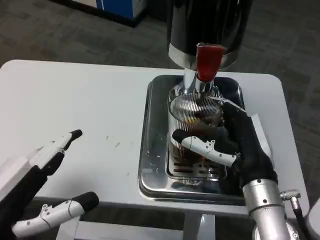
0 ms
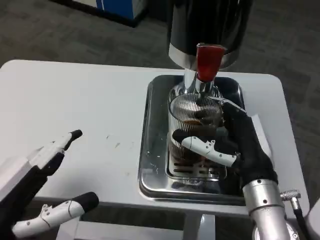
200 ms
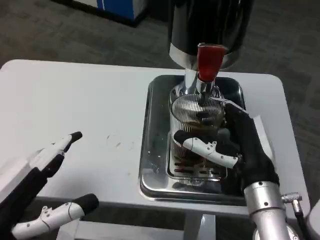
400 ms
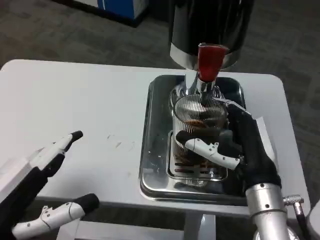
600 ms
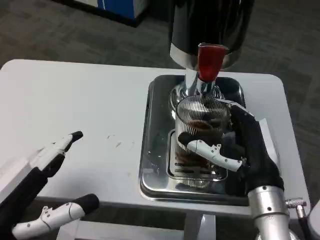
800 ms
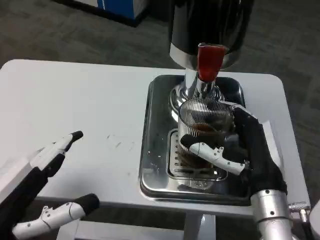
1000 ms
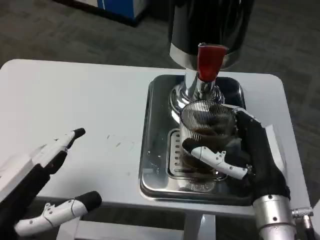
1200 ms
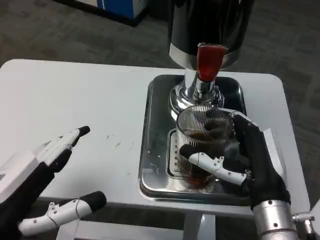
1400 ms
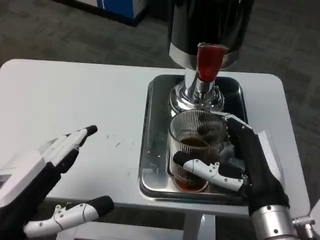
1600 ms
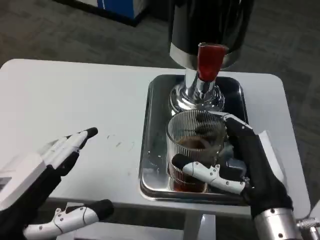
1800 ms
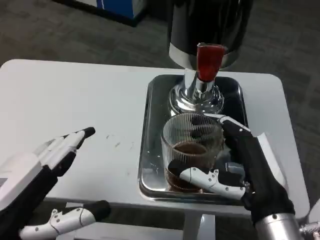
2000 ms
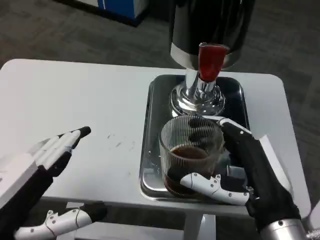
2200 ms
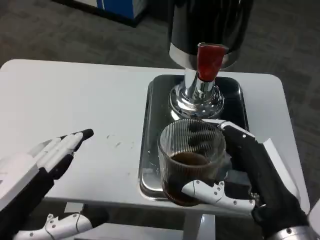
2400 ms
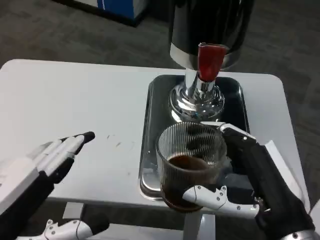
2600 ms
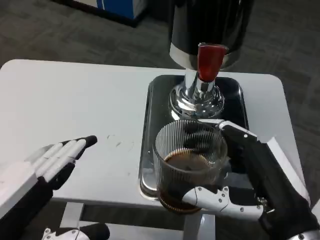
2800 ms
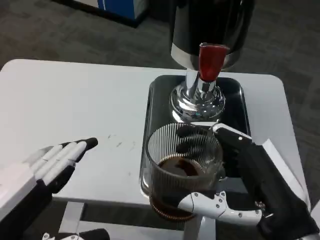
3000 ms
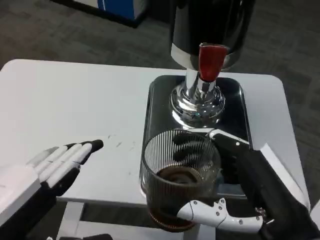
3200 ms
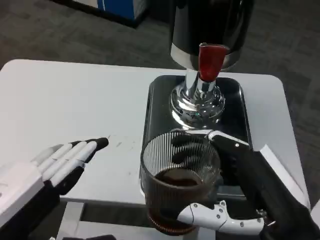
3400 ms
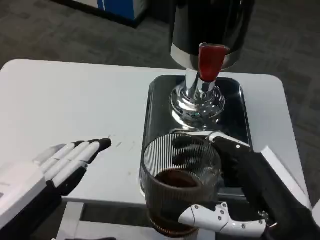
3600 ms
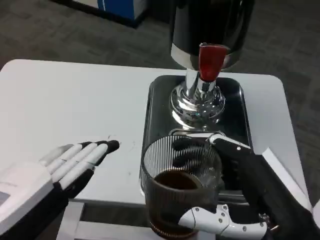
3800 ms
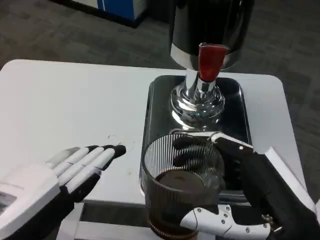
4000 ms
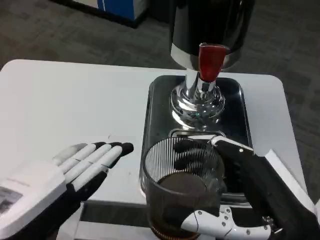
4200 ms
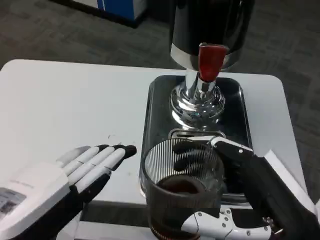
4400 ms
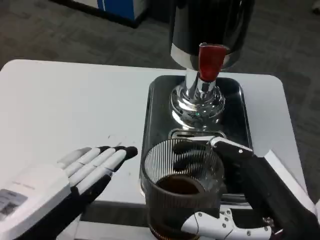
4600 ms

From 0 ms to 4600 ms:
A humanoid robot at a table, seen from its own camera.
Task of the whole recording: Grasp the cup under the faucet to collect the drink, then remove the cup.
From 1600 ms to 3000 ms: The right hand travels backward by about 10 cm.

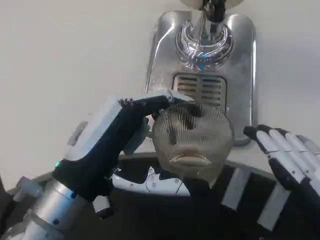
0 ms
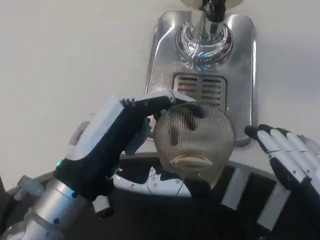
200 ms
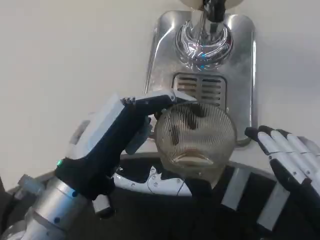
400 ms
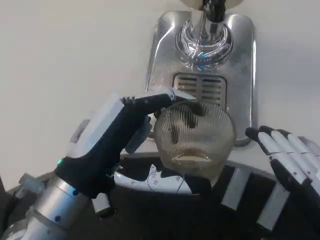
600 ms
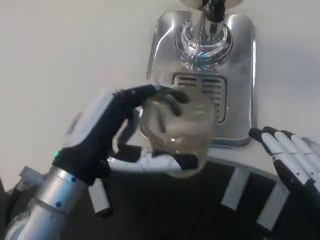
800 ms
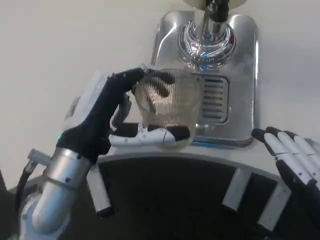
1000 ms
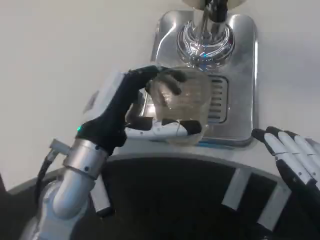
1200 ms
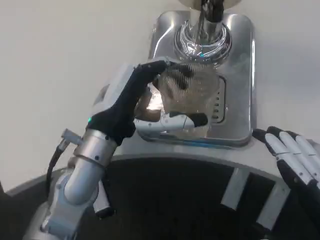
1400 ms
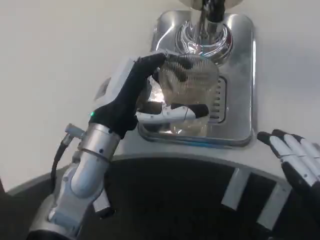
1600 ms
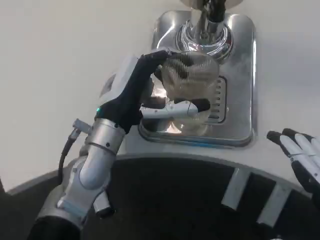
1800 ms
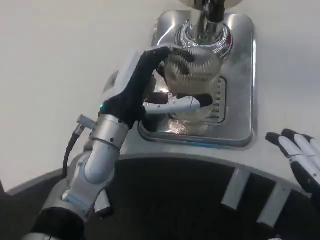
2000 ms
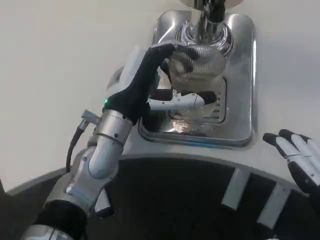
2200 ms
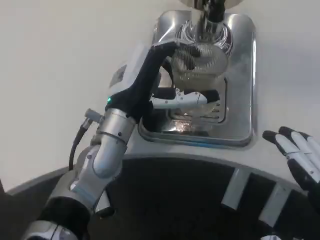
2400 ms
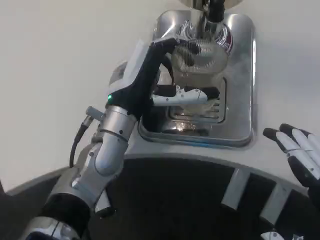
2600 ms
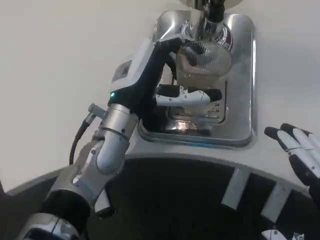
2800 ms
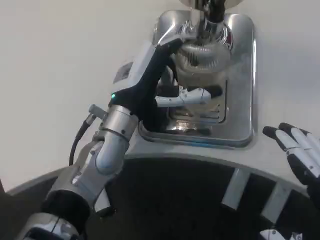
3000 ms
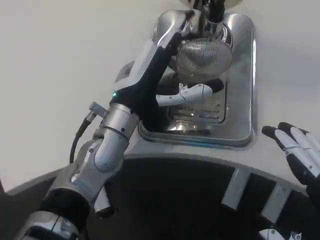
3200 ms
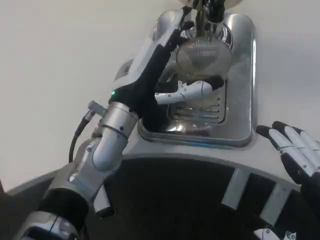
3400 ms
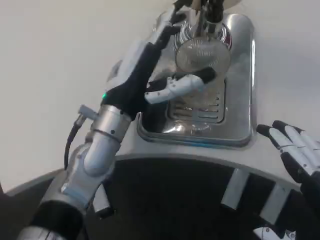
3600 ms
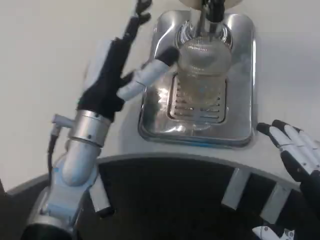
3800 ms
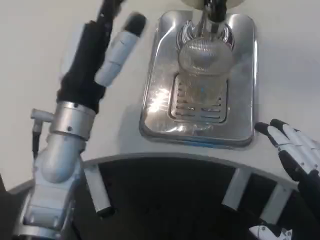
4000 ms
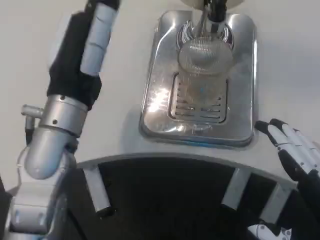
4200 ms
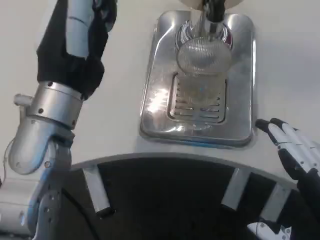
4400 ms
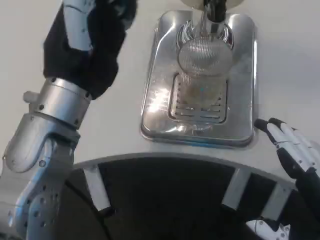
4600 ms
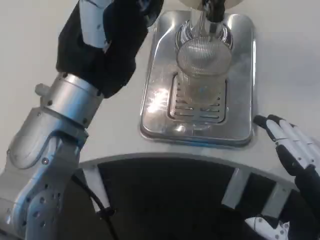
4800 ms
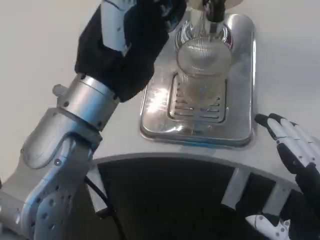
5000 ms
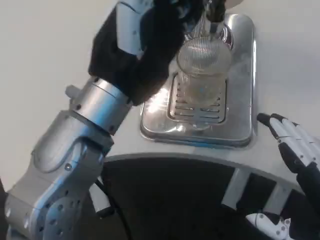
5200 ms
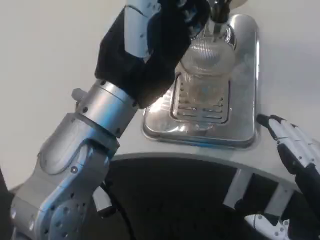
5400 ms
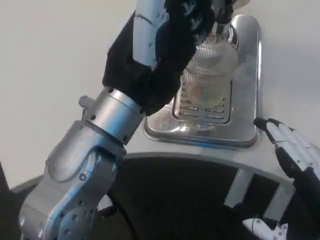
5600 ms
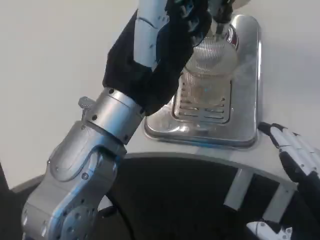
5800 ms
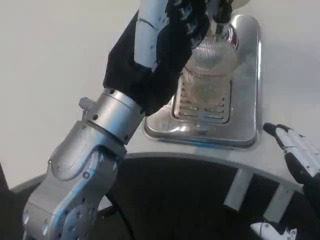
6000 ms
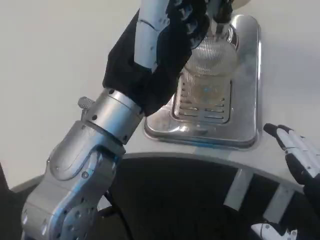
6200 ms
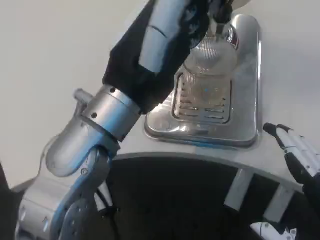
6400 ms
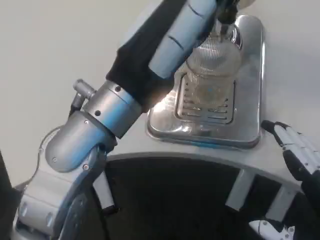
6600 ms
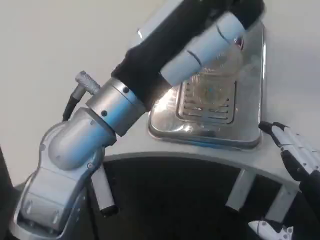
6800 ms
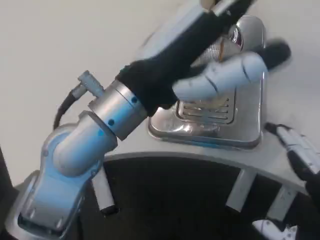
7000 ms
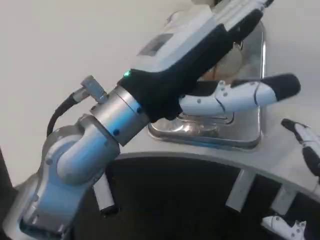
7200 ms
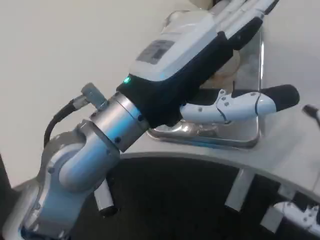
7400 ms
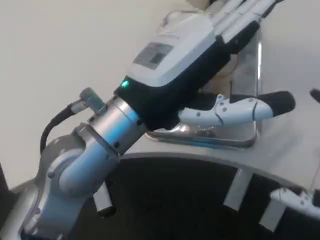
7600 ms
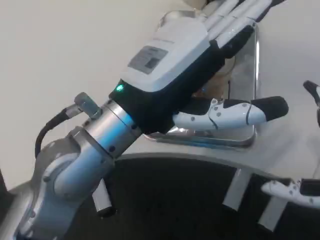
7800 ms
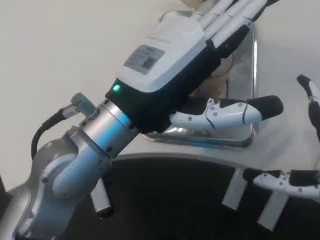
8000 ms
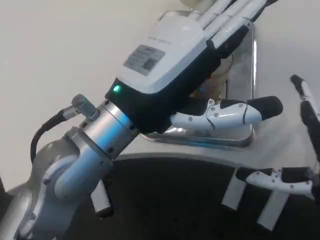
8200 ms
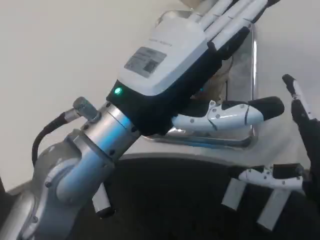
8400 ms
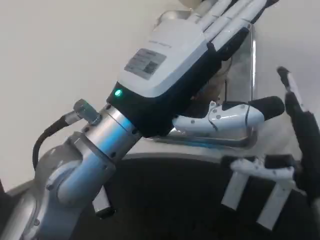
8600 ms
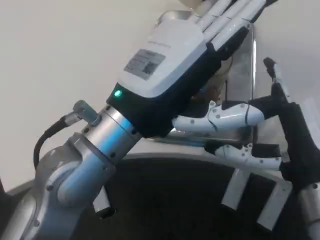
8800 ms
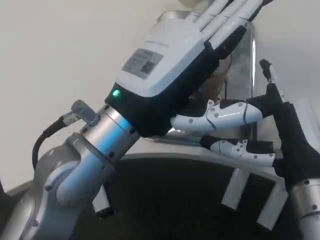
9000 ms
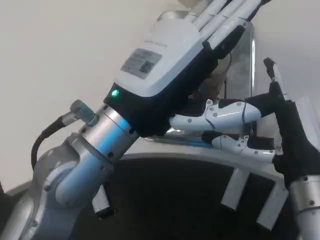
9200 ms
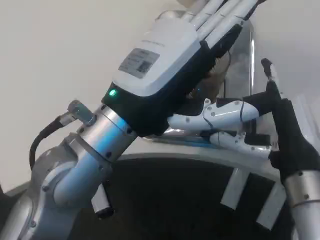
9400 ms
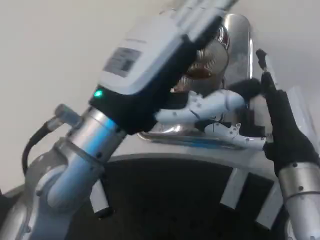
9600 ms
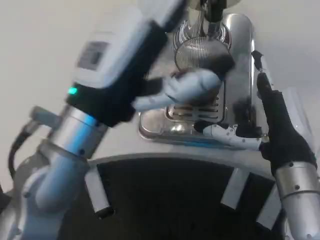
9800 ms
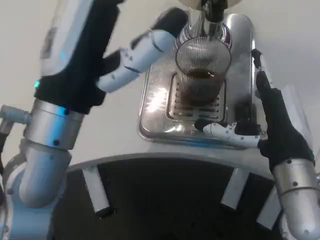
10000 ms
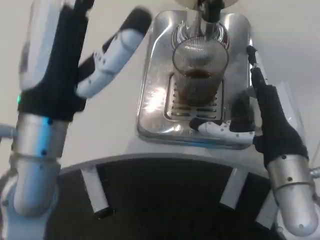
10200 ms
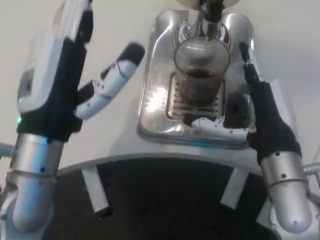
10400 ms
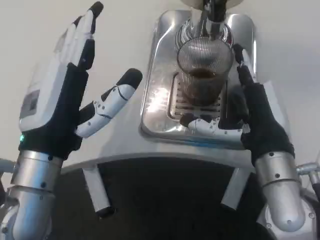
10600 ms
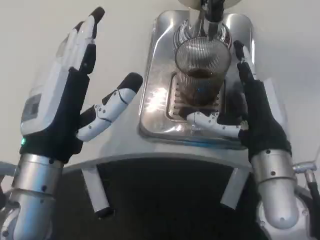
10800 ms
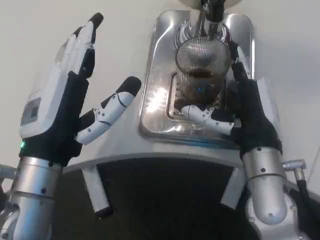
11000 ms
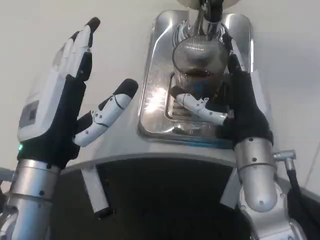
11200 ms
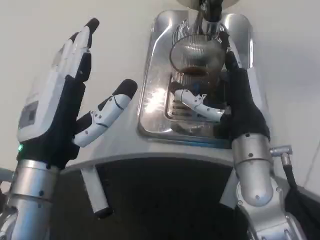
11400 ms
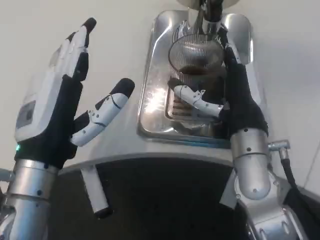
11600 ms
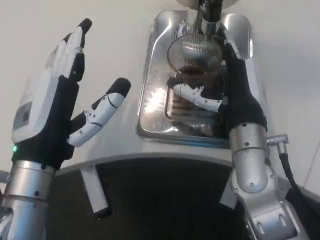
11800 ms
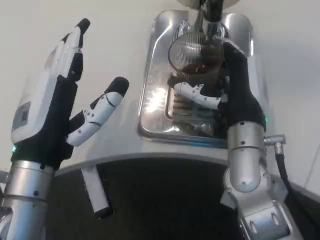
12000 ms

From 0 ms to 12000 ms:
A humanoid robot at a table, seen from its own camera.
Task of the whole recording: Grasp the cup under the faucet to collect the drink, then remove the cup.
From 0 ms to 1600 ms: The left hand shifts some 10 cm forward.
From 1600 ms to 3000 ms: The hands make only small movements.
From 3000 ms to 4400 ms: The left hand is displaced upward and backward by about 10 cm.
From 4400 ms to 6000 ms: The left hand is displaced to the right by roughly 5 cm.
From 7600 ms to 9000 ms: The right hand is displaced forward by approximately 10 cm.
From 9000 ms to 10400 ms: The right hand ends up approximately 5 cm from where it was. The left hand shifts some 10 cm to the left and downward.
From 10400 ms to 12000 ms: The right hand shifts by about 5 cm.

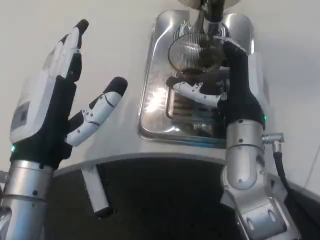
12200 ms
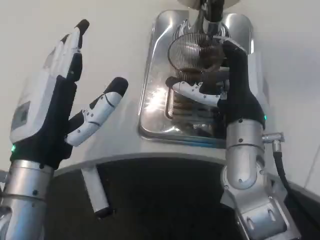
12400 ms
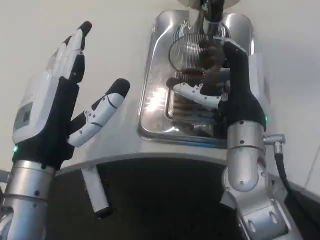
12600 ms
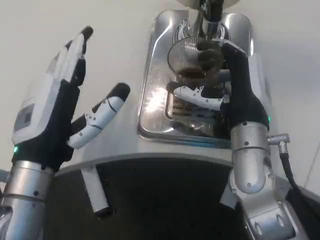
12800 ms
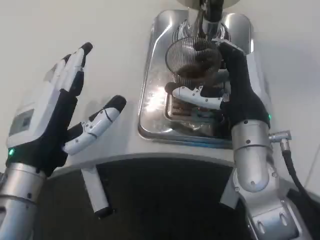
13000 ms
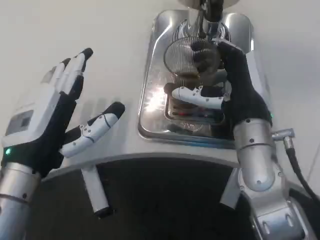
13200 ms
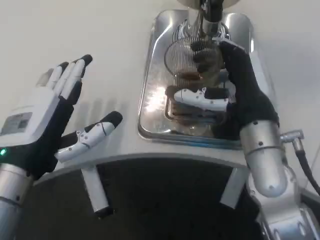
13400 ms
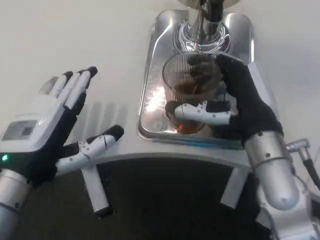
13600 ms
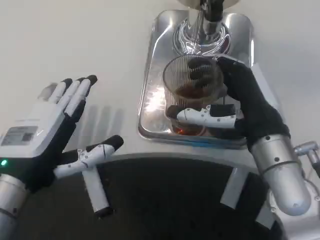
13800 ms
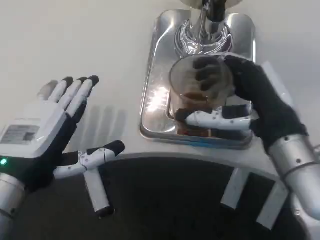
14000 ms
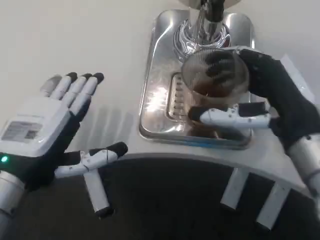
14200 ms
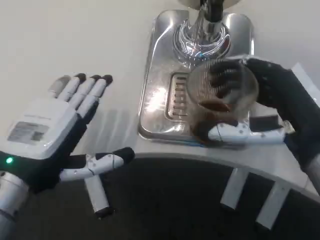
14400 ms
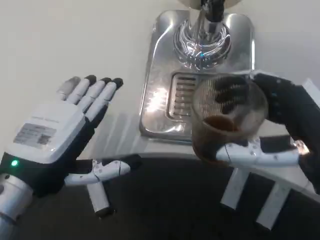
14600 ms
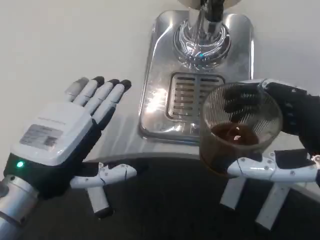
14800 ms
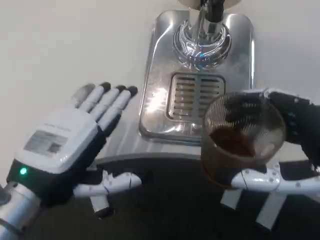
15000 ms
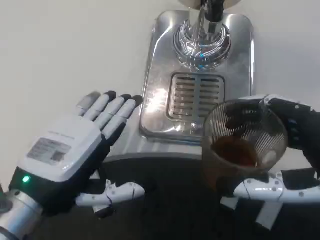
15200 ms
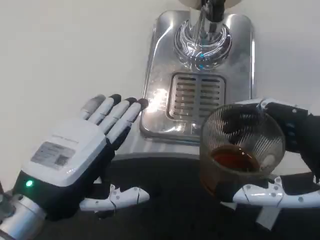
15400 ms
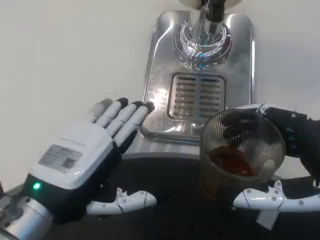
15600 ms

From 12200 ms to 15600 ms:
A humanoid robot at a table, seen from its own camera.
Task of the whole recording: Grasp the cup under the faucet to collect the drink, then remove the cup.
From 12200 ms to 13800 ms: The right hand moves roughly 5 cm.
From 13800 ms to 15600 ms: The right hand travels backward and to the right by approximately 15 cm. Meanwhile the left hand changes place by approximately 5 cm.

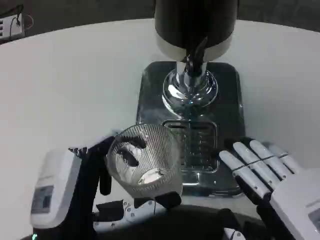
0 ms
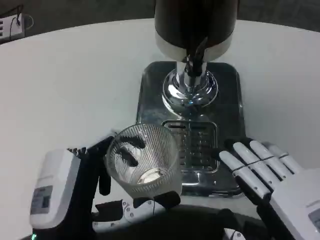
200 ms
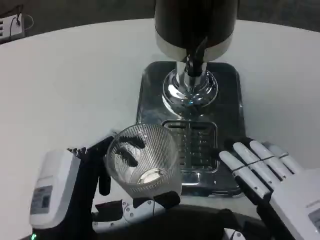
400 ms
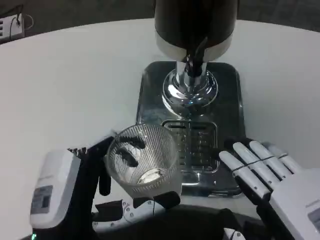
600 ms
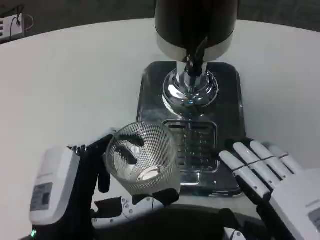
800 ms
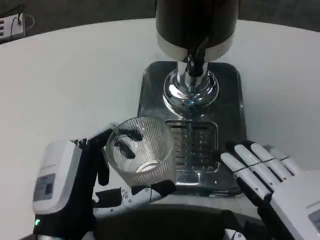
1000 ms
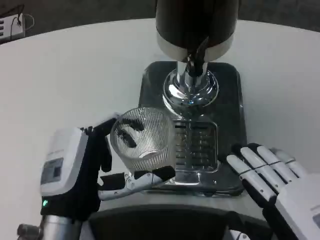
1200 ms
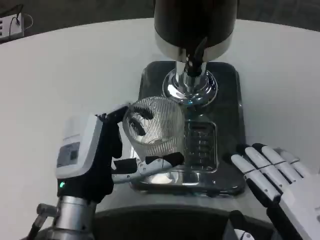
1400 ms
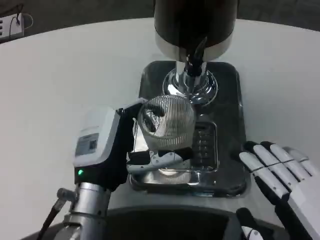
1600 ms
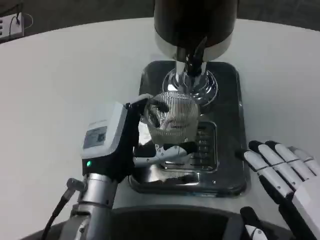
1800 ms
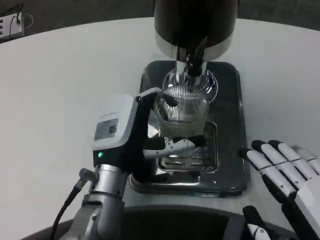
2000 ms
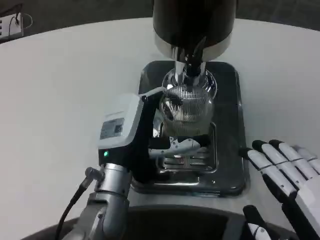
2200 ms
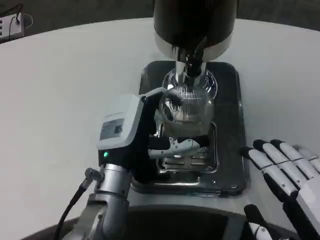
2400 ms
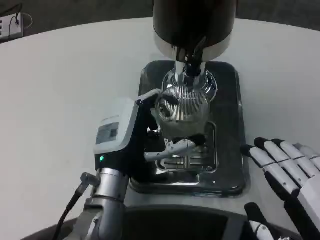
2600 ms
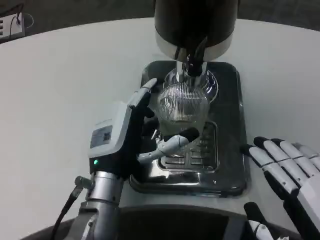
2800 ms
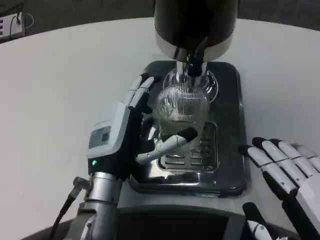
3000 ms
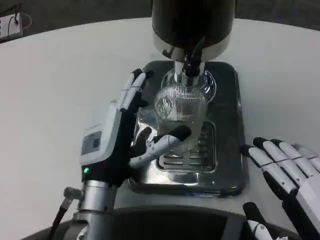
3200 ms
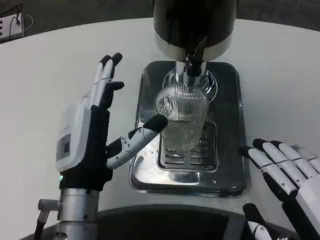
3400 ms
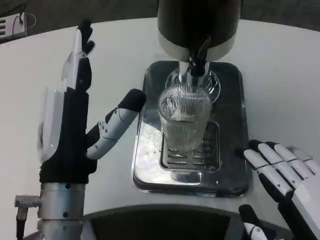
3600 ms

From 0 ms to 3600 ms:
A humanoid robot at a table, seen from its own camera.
Task of the whole recording: Grasp the cup under the faucet to collect the drink, then remove the cup.
From 0 ms to 1800 ms: The left hand moves forward, roughly 10 cm.
From 1800 ms to 3600 ms: The left hand shifts about 5 cm backward.
